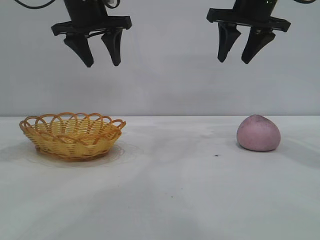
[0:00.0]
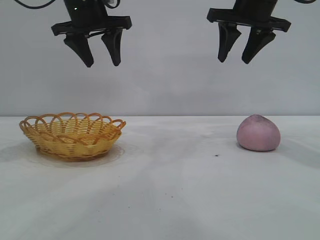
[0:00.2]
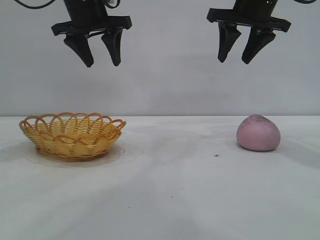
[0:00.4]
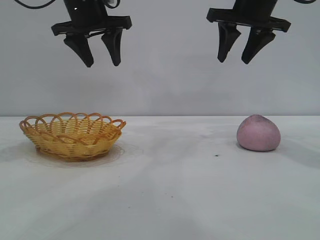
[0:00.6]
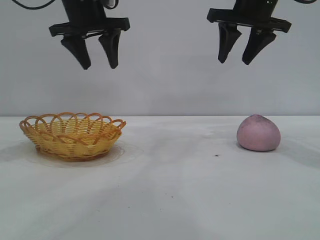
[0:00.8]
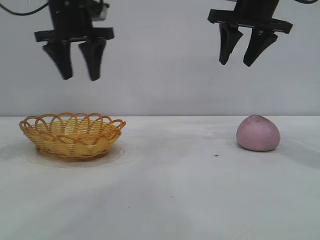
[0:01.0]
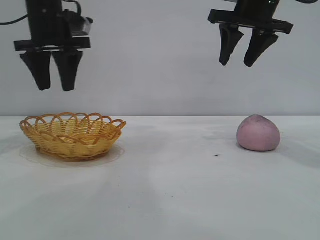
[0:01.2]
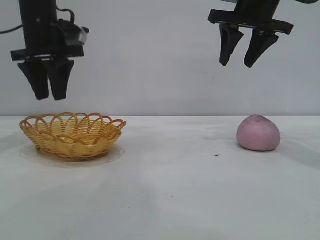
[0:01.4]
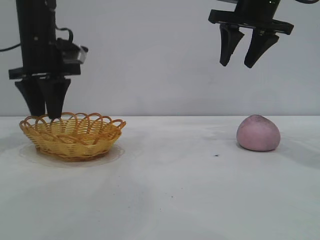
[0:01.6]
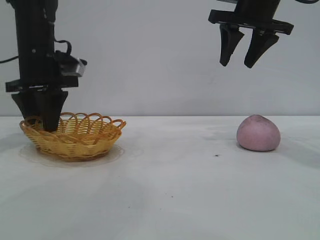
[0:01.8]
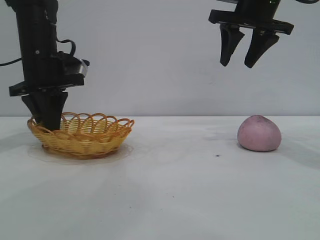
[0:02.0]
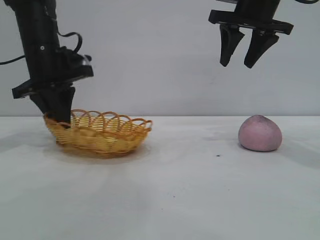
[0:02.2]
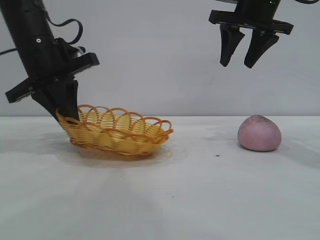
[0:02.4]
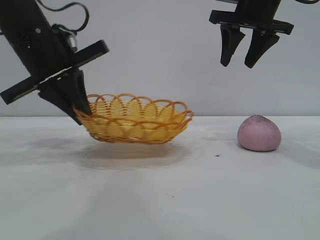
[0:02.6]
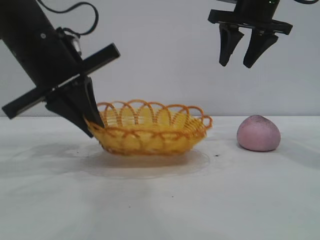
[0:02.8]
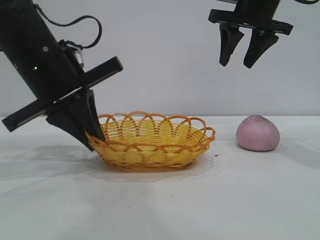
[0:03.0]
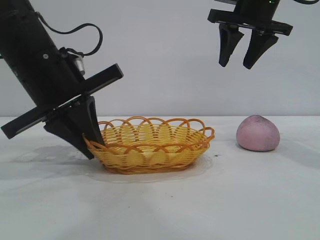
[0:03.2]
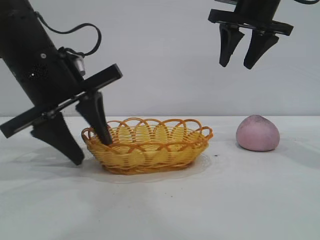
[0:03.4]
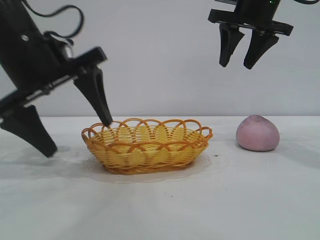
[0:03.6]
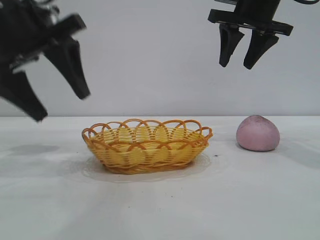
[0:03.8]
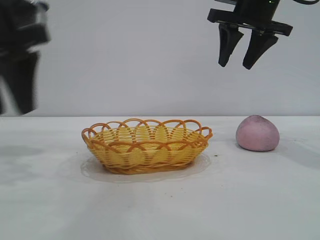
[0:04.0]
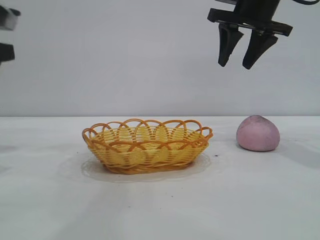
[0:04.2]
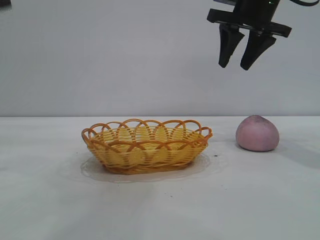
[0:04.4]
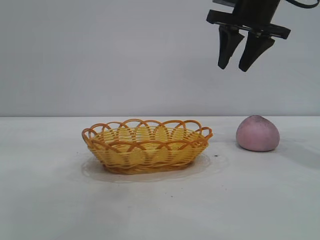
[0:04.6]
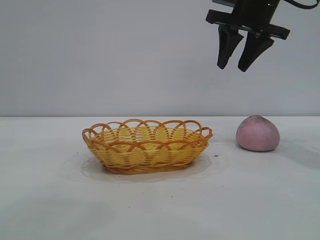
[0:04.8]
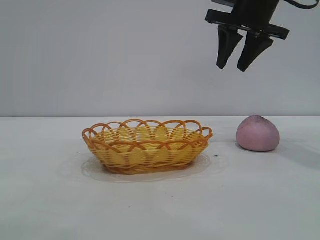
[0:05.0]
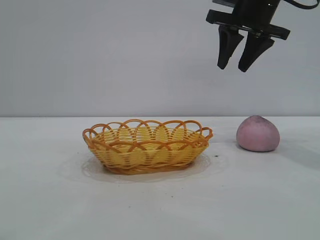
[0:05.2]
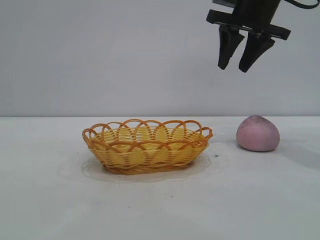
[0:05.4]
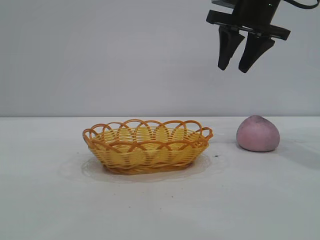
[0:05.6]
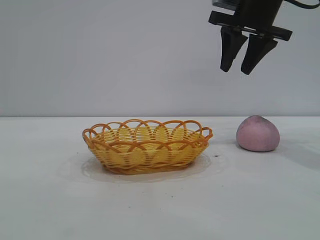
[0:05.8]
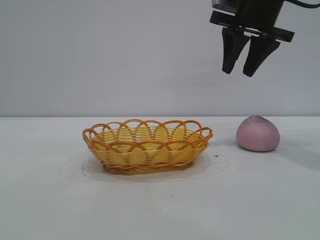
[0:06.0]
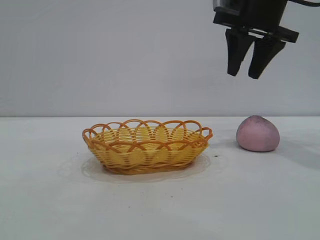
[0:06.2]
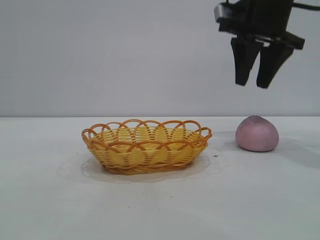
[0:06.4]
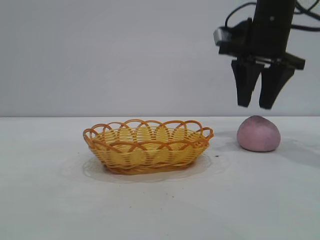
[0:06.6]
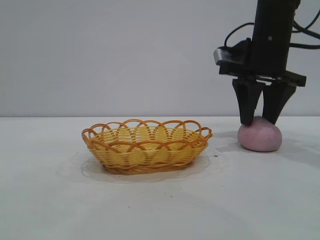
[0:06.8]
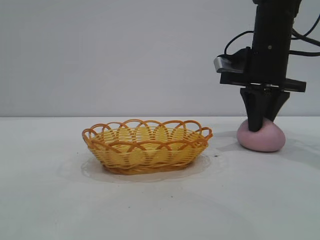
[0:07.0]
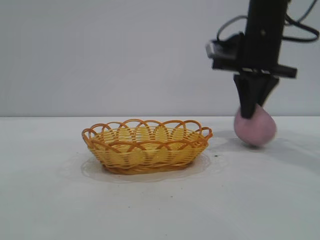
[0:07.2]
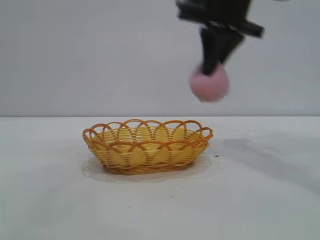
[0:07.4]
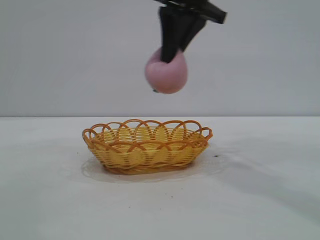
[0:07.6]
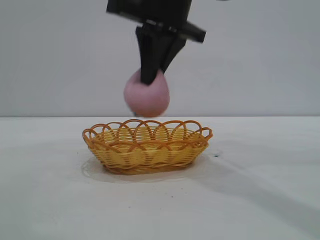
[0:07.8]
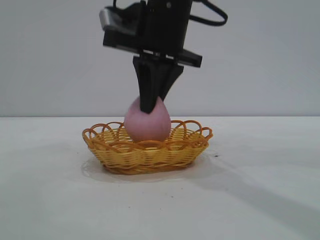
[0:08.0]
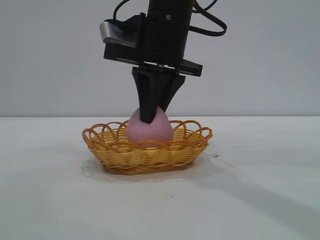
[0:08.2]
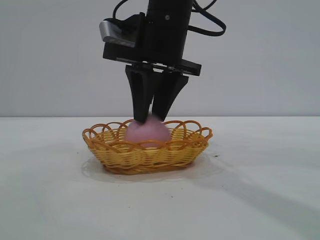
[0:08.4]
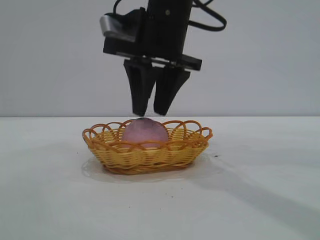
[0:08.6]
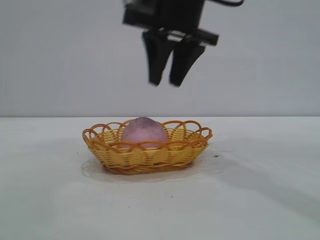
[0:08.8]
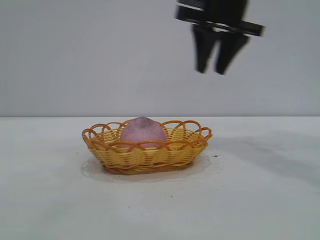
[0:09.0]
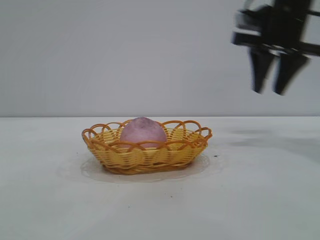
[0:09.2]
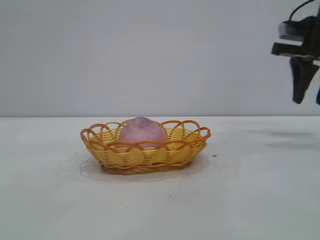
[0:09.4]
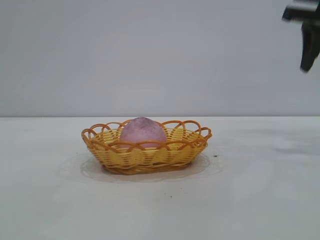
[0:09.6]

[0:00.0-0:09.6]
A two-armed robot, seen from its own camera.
Task of the whole recording: pick up the peach and put it into the basket.
Step, 0:00.0 to 0:03.6: Move the basket to the center of view.
Step, 0:03.8 to 0:07.2: Pick up the peach.
Step, 0:07.4 to 0:08.8: place the peach into the basket.

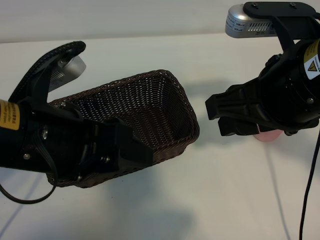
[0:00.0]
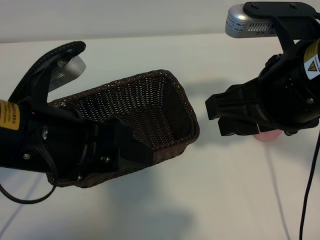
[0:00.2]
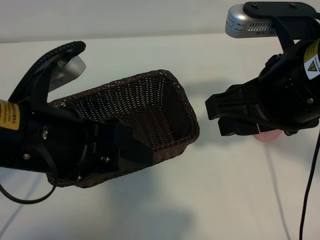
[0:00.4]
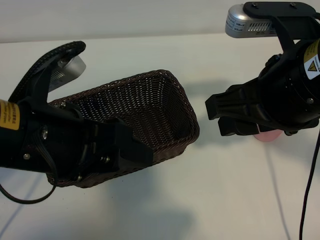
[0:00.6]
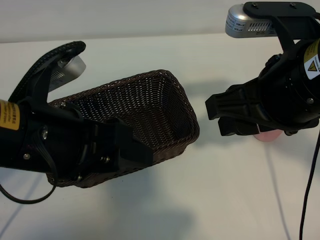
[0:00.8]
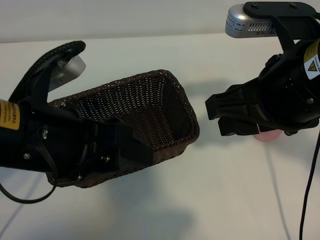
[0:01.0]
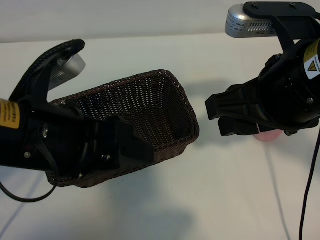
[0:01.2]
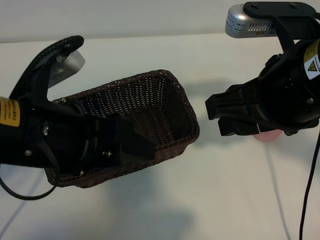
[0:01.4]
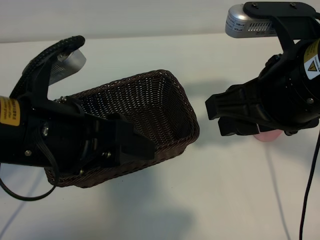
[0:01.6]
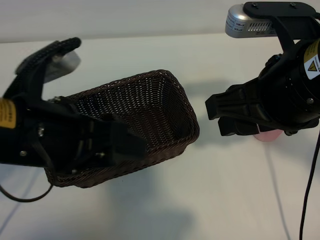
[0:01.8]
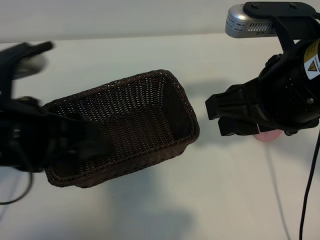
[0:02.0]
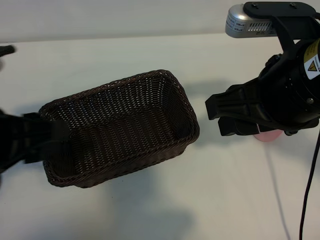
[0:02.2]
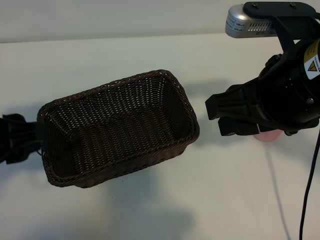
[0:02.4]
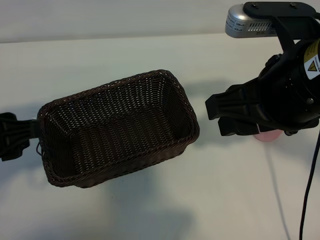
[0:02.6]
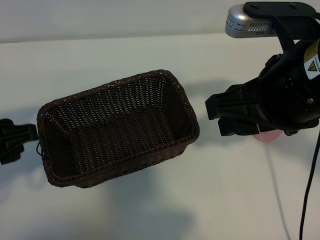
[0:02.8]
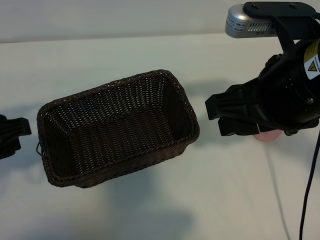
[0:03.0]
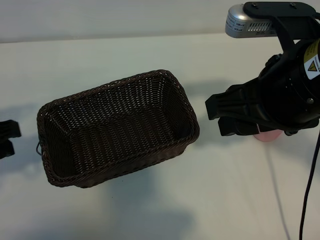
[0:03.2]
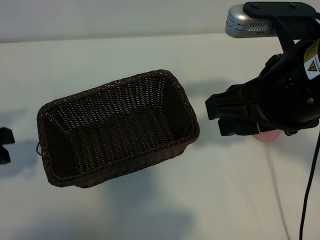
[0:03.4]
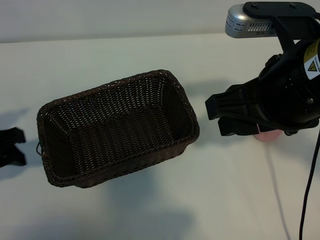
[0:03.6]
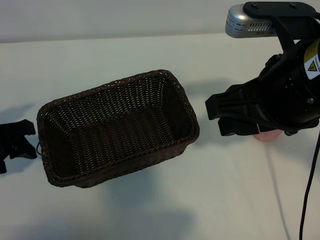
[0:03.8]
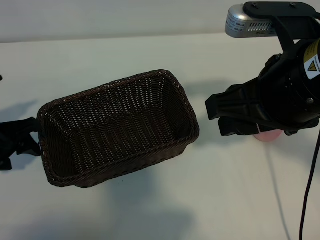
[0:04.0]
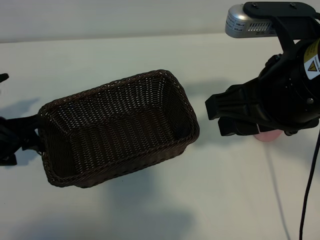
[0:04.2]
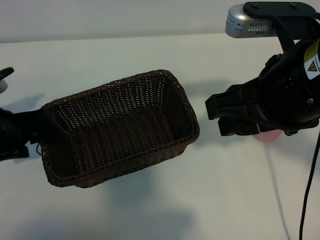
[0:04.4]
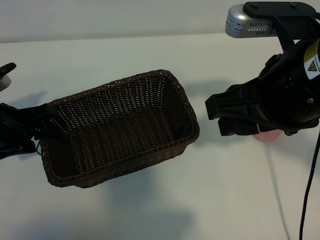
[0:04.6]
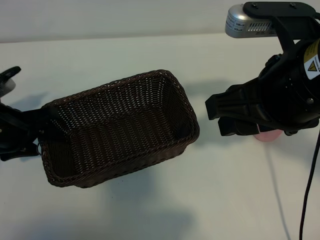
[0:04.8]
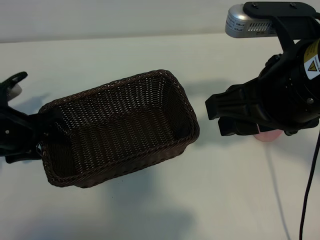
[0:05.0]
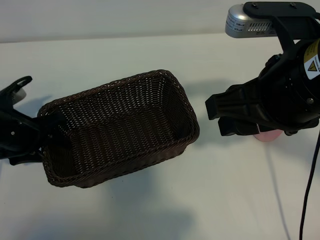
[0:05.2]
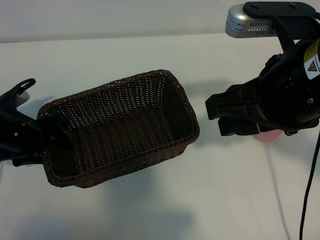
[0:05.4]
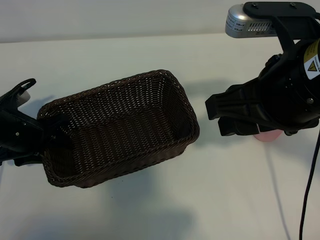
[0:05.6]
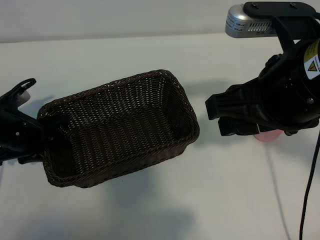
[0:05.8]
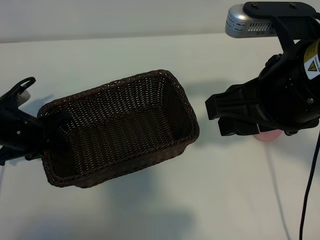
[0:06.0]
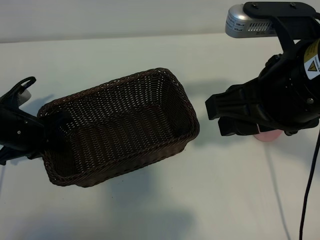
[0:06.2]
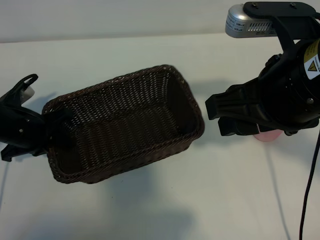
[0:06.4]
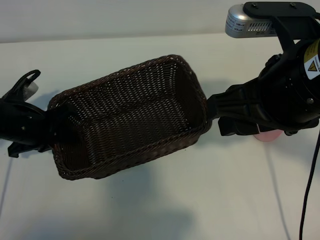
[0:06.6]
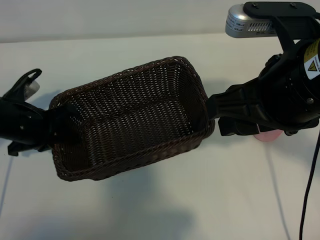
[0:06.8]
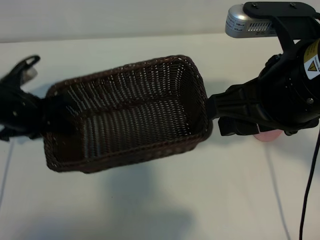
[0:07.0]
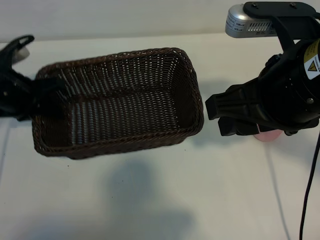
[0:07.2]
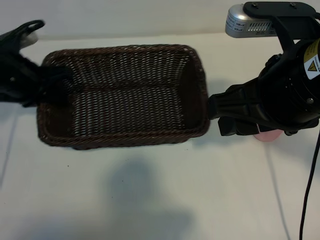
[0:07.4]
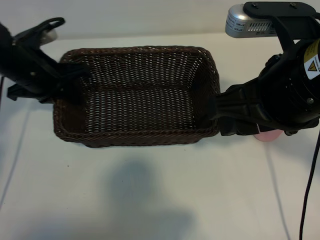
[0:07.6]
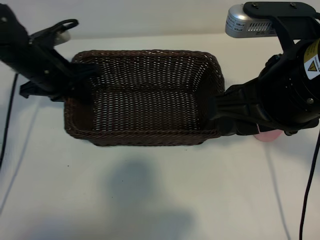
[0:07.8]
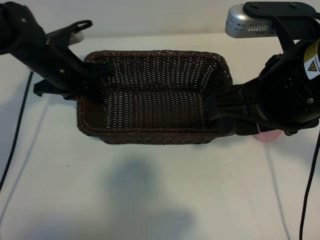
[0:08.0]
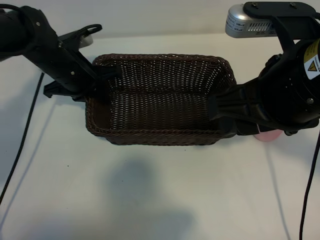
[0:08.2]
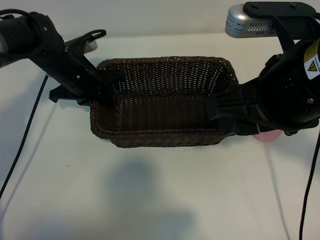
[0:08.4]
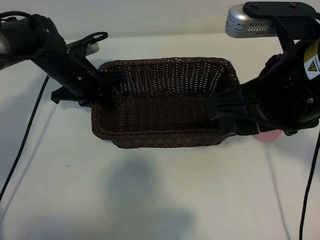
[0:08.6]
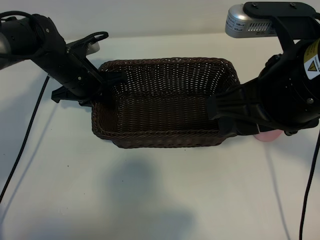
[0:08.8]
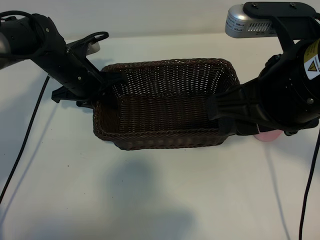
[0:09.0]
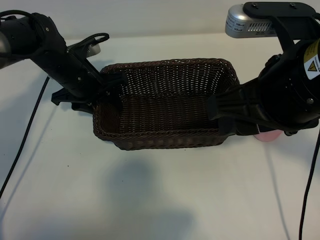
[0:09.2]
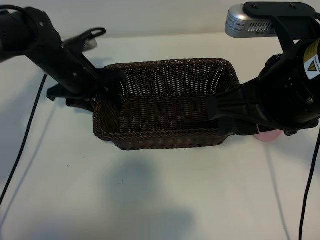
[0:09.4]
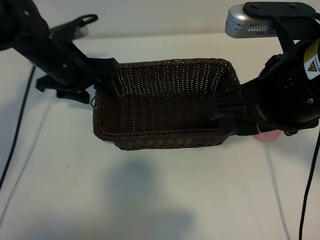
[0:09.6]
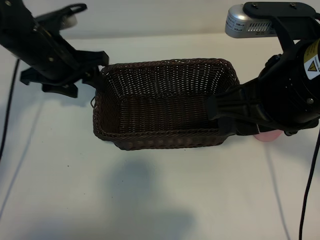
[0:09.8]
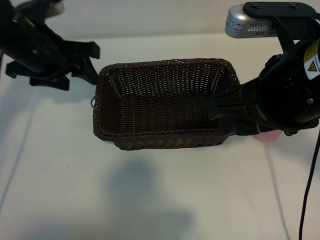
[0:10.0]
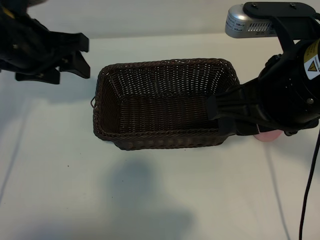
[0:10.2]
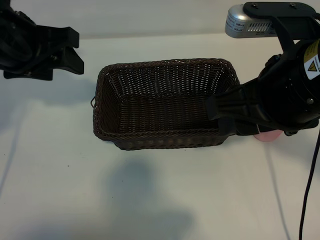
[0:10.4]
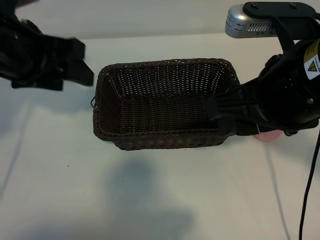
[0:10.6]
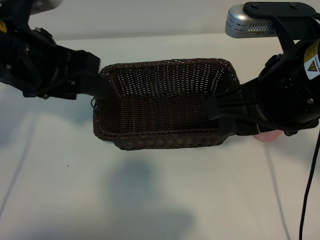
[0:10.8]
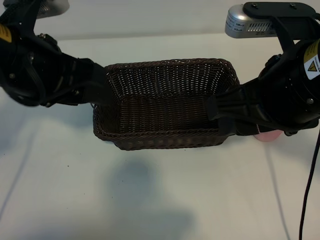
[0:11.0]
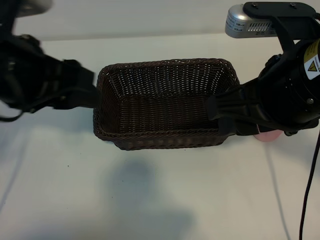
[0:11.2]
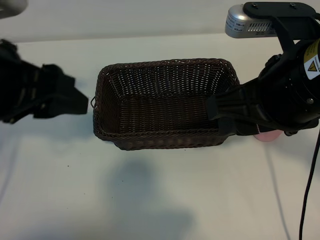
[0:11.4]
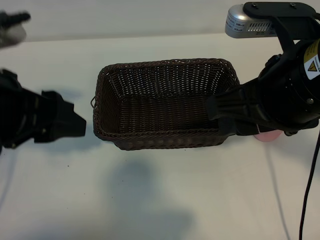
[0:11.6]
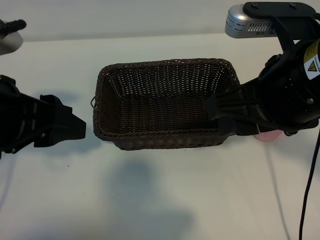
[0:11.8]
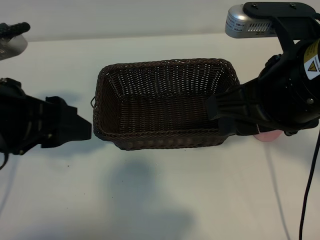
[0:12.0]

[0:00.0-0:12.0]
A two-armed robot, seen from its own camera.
Task of the whole recording: pick up the peach and put it into the basket.
Step, 0:01.4 to 0:06.0: Grasp the basket with left gripper.
Step, 0:06.2 to 0:09.6: Place the basket in the center of view with left gripper.

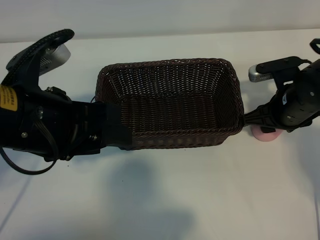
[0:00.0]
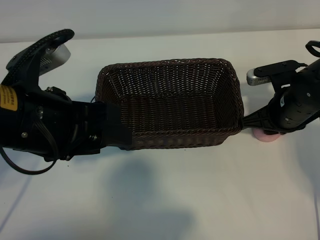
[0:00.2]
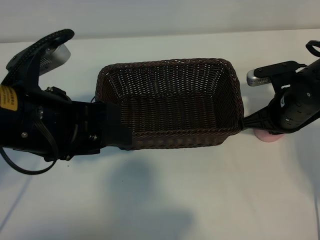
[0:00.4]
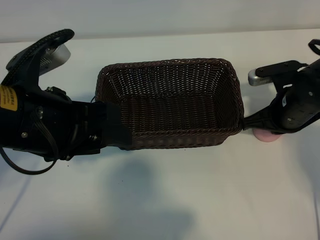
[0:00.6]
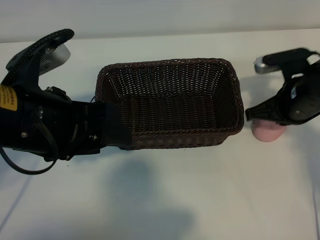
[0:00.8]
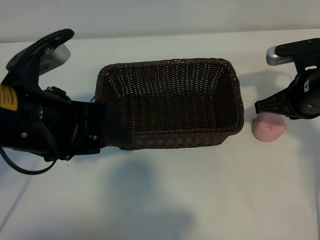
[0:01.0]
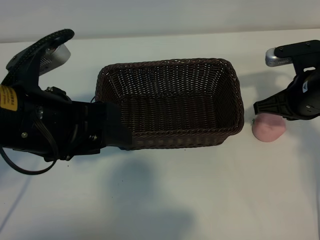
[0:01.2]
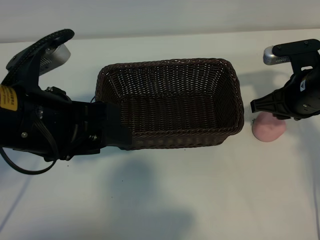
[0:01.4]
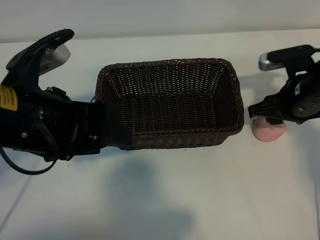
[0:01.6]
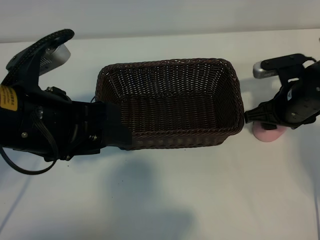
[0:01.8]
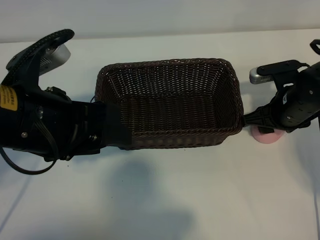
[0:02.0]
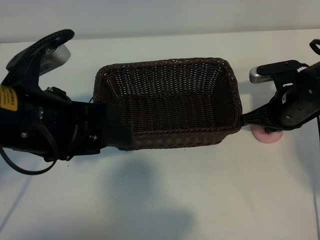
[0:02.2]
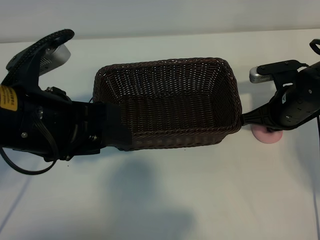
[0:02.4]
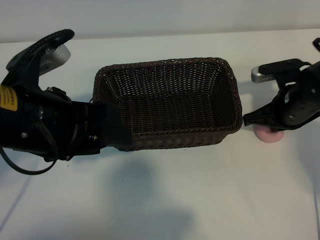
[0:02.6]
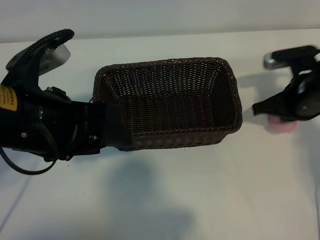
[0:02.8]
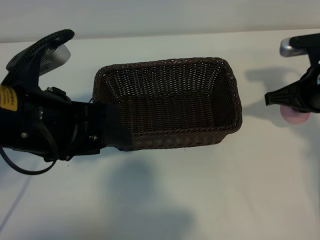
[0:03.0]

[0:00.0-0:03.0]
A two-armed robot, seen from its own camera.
Task of the whole recording: pick up the peach and put it into the basket.
Step, 0:00.0 to 0:02.4: Grasp the peach with right gripper.
